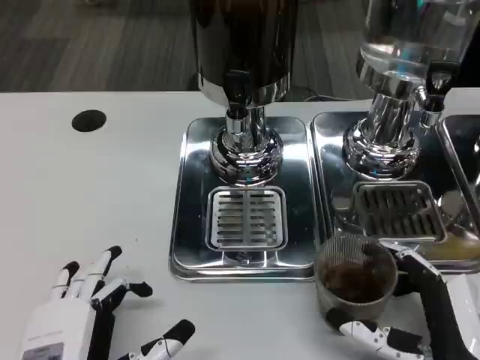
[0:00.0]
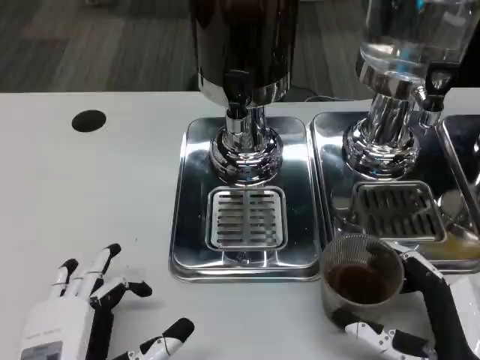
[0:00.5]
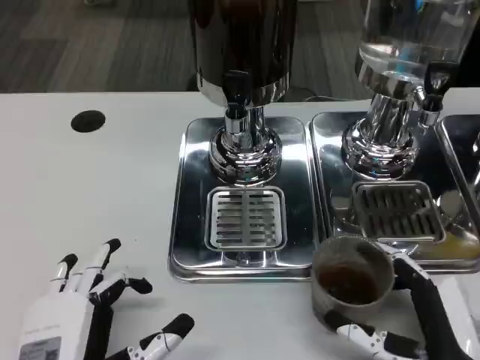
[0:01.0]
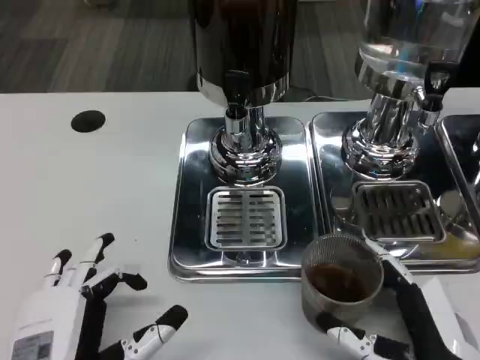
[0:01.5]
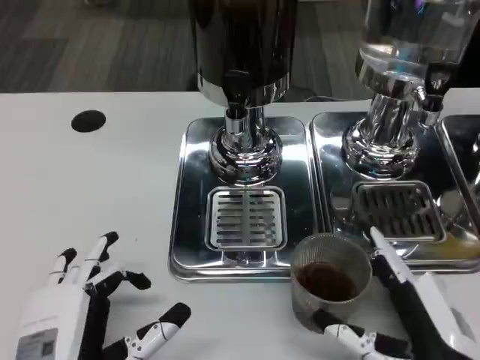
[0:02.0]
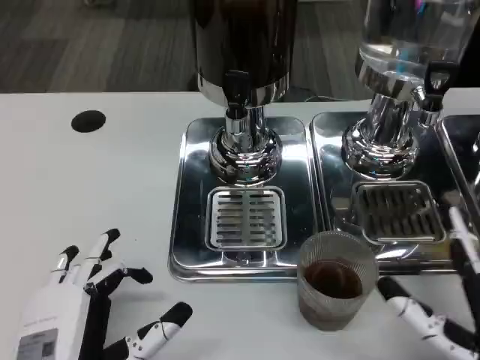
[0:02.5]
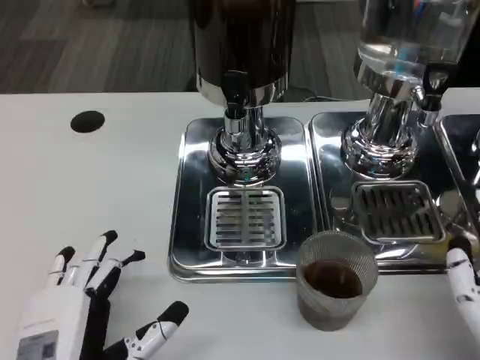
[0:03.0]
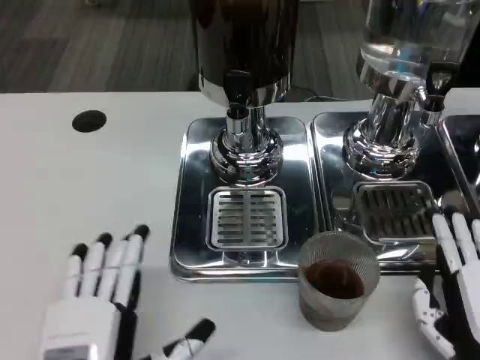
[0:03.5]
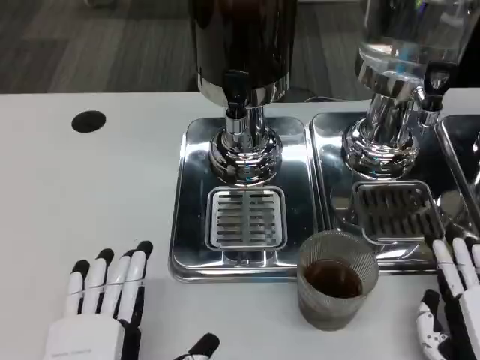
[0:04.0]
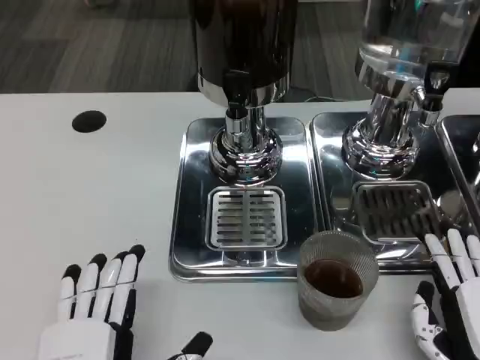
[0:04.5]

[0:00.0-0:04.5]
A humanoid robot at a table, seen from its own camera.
Task of the whole recording: Grasp the cup under the faucet to collect the drink, then remove the cup.
0:00.0 to 0:02.0: The hands move only a little.

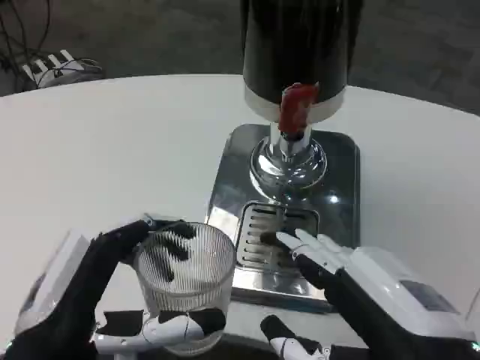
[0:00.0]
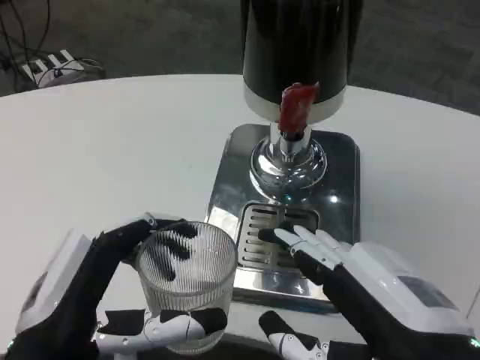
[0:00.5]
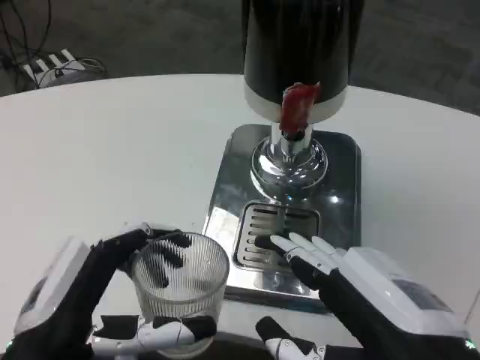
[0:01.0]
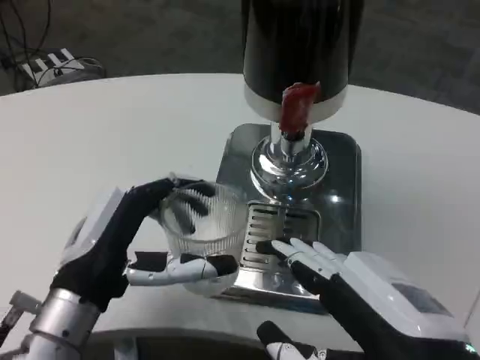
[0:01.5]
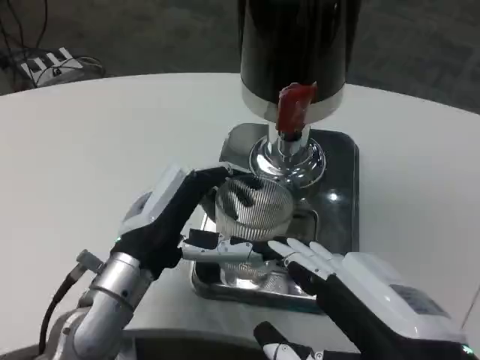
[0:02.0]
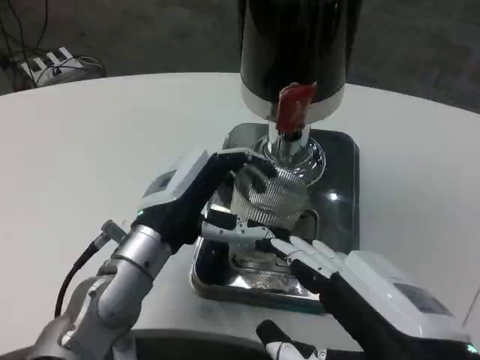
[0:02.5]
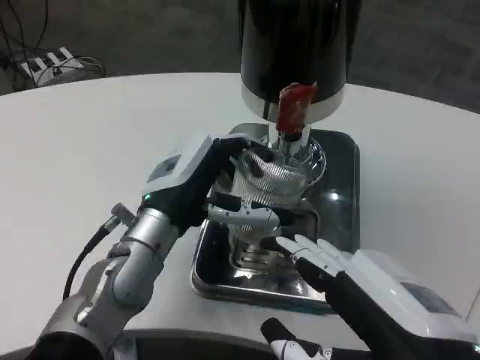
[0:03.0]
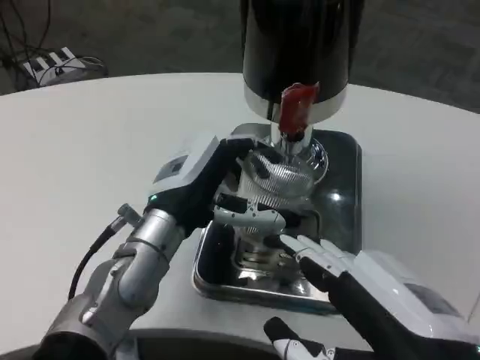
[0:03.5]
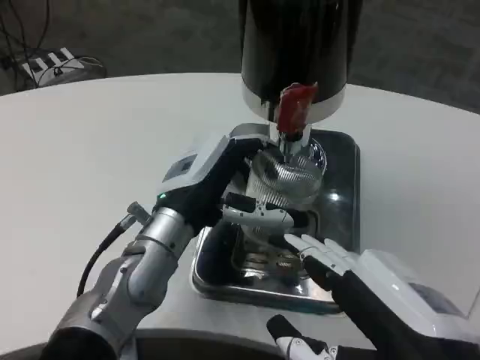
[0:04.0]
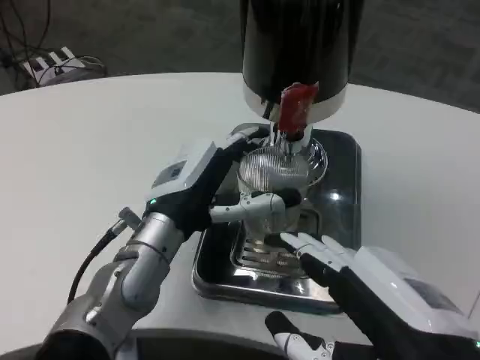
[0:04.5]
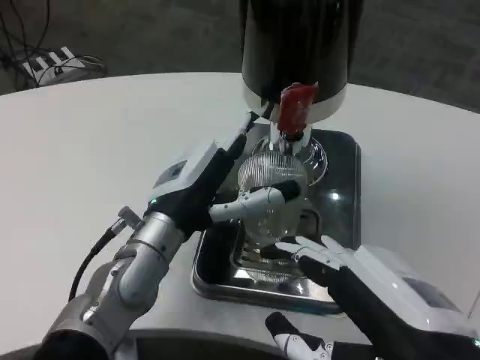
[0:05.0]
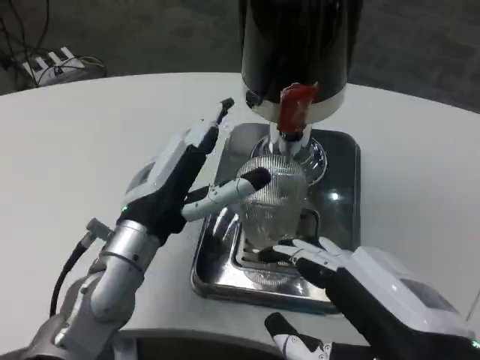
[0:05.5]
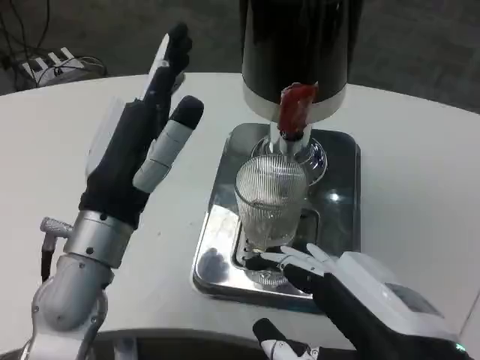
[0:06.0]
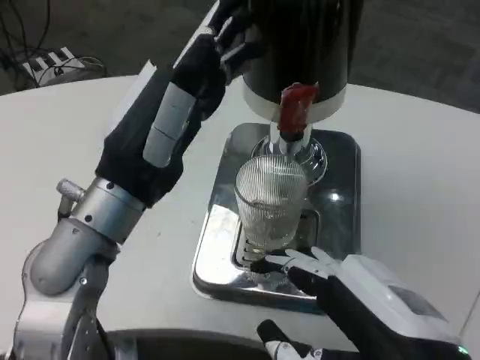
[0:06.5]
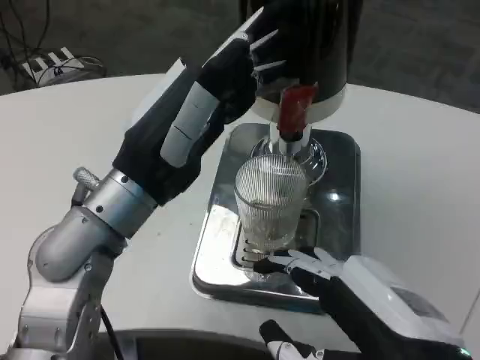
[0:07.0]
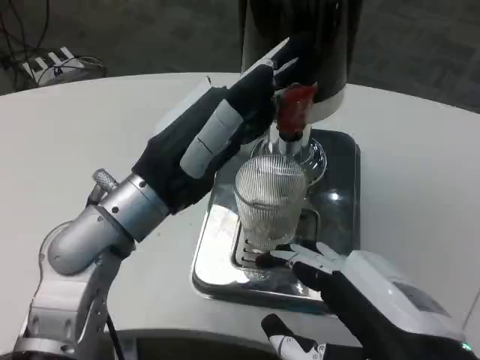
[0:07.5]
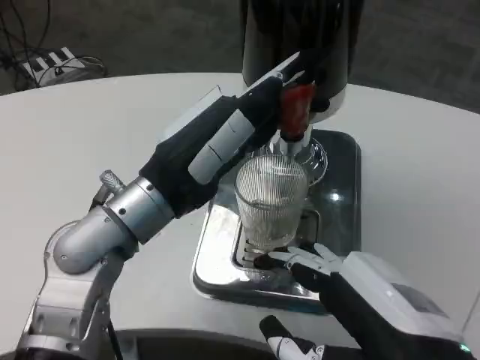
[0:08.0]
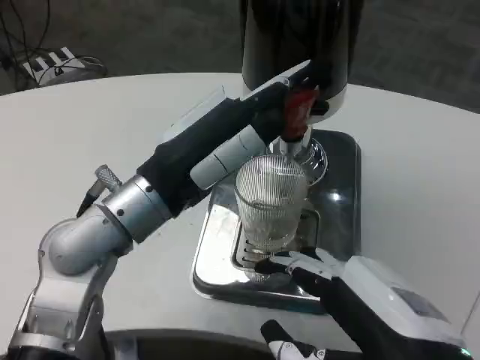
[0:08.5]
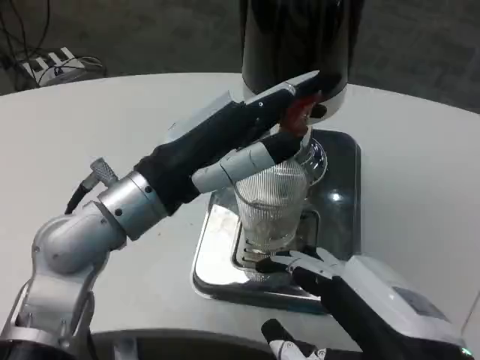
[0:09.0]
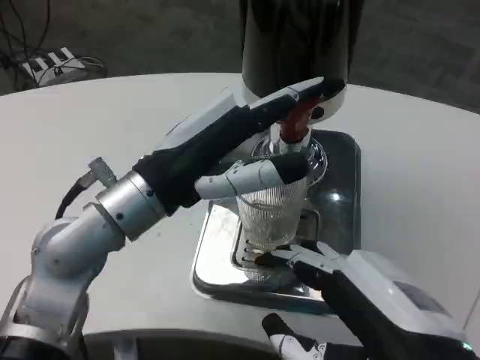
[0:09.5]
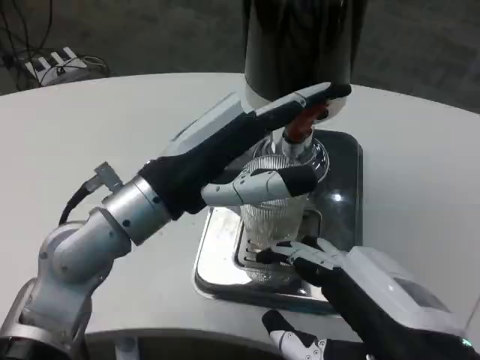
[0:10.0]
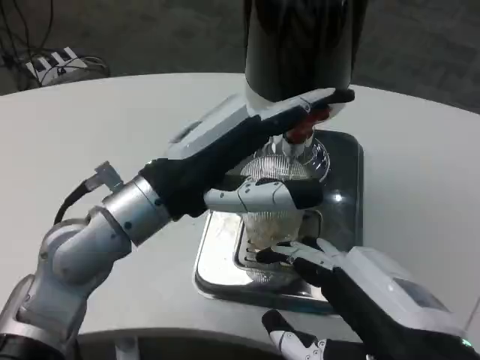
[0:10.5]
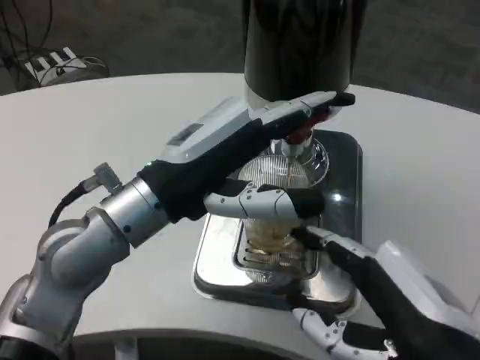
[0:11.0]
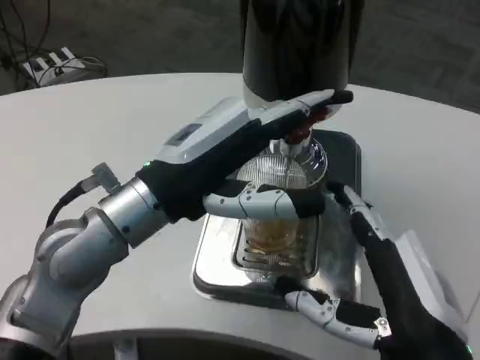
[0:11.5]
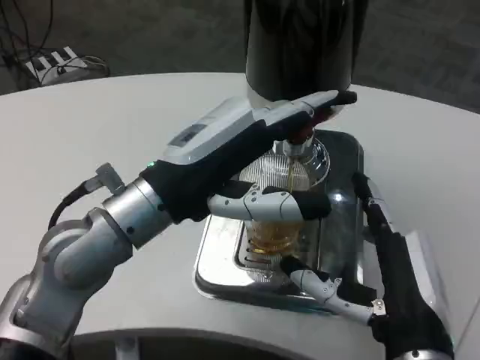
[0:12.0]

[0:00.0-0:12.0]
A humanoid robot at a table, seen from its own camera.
Task of the whole recording: Grasp the cup under the faucet to collect the drink, then remove the cup.
0:00.0 to 0:02.0: The left hand heads forward, covering some 15 cm.
0:02.0 to 0:04.0: The left hand moves roughly 5 cm.
0:04.0 to 0:06.0: The left hand is displaced backward by some 5 cm.
0:10.0 to 0:12.0: The right hand moves downward and forward, approximately 10 cm.

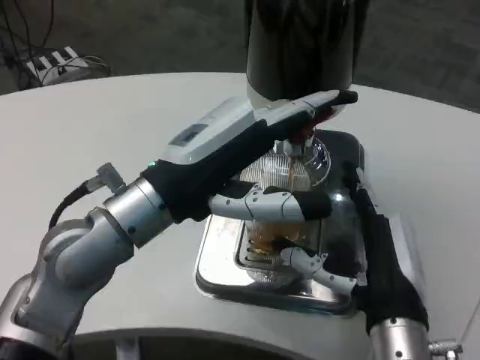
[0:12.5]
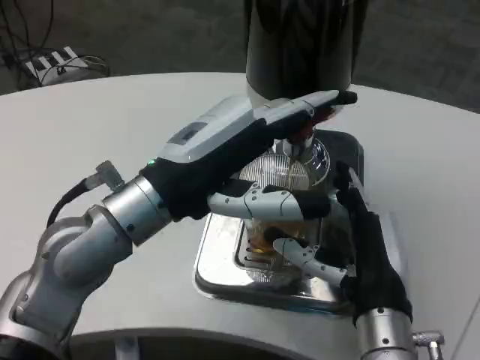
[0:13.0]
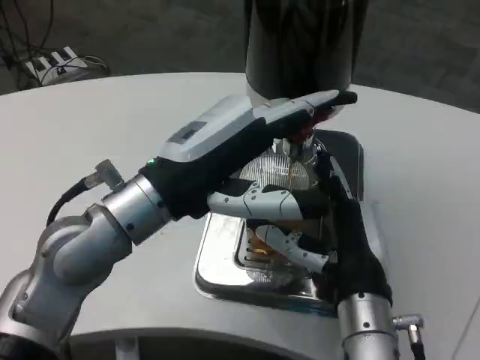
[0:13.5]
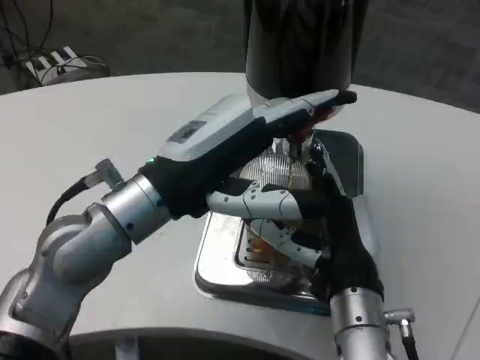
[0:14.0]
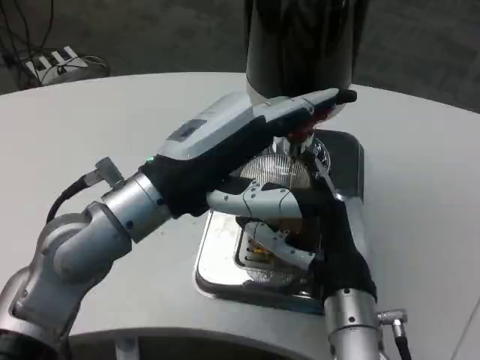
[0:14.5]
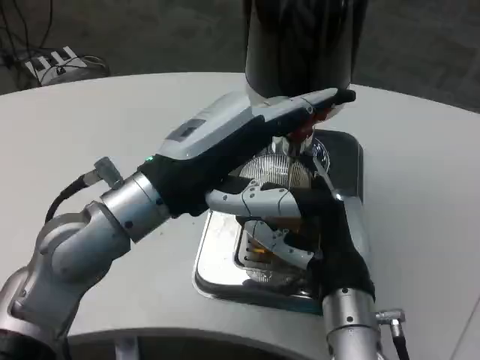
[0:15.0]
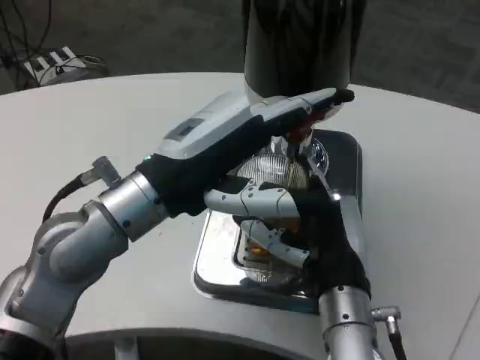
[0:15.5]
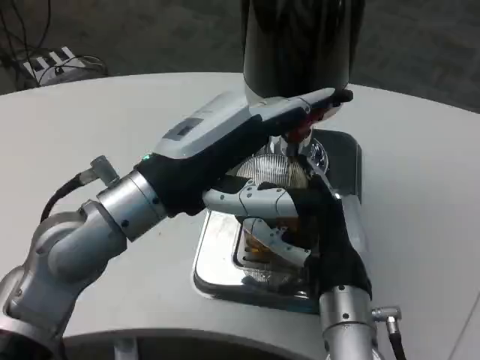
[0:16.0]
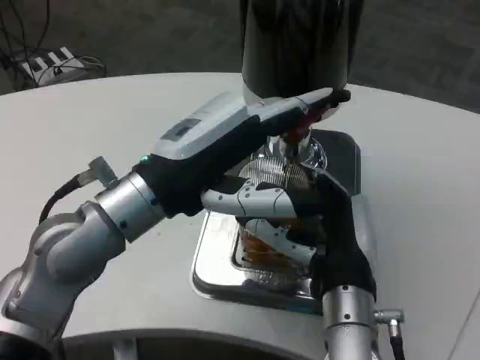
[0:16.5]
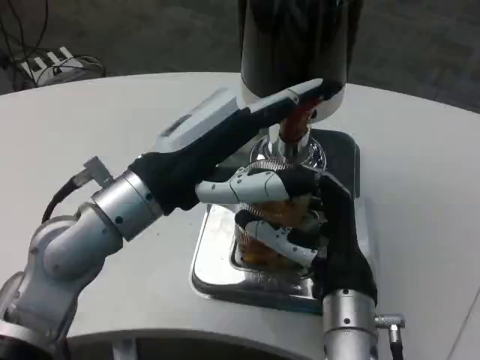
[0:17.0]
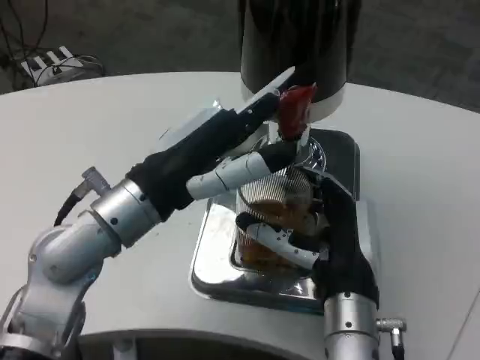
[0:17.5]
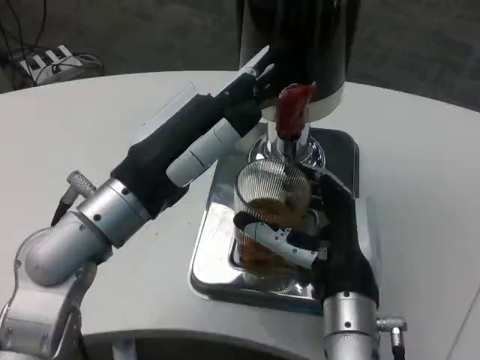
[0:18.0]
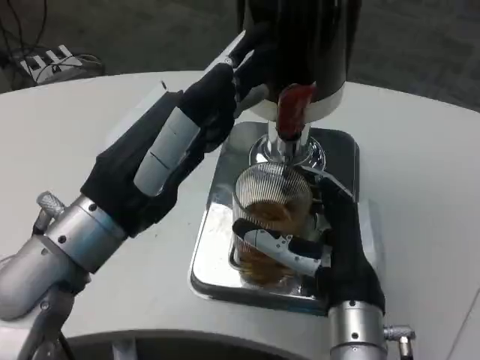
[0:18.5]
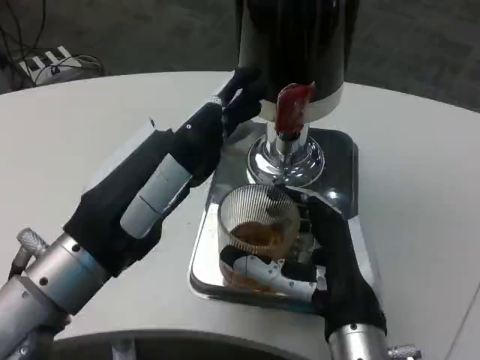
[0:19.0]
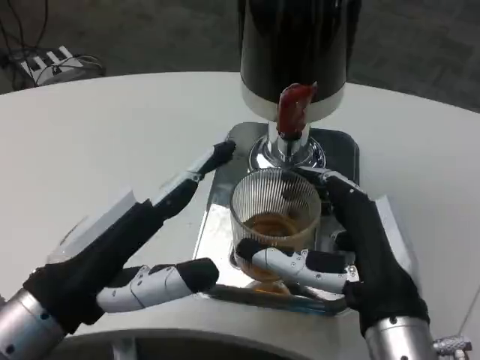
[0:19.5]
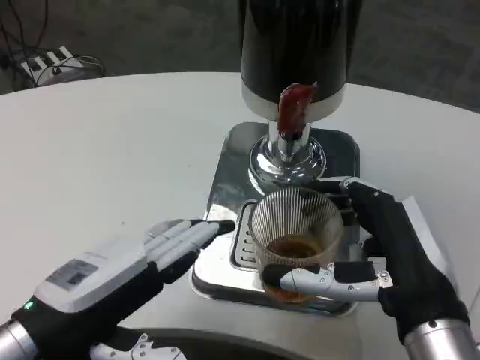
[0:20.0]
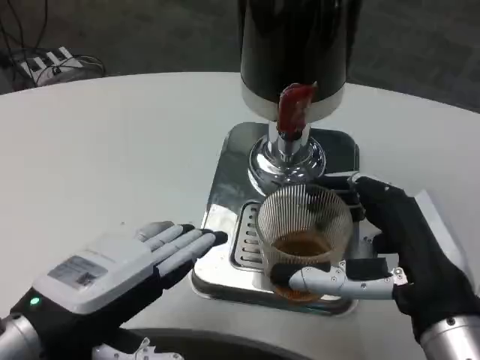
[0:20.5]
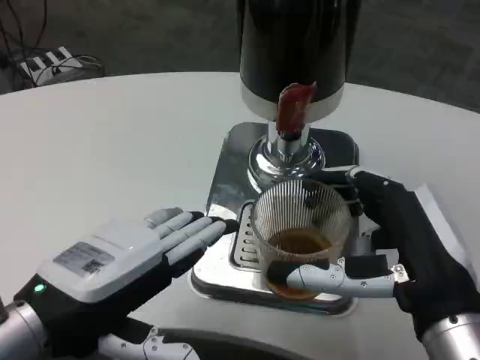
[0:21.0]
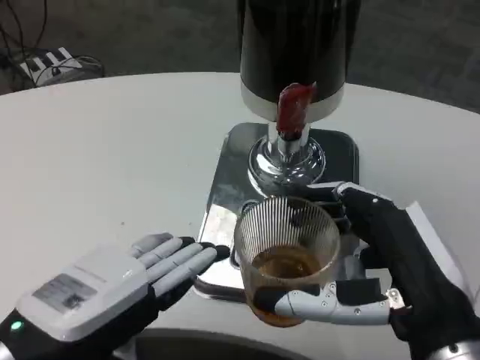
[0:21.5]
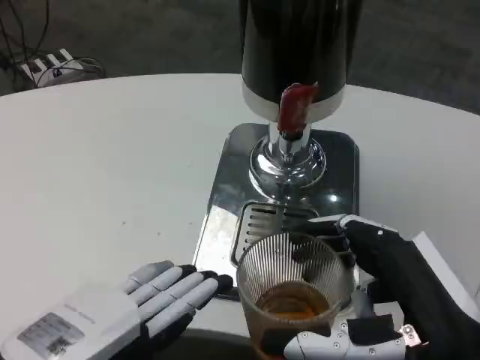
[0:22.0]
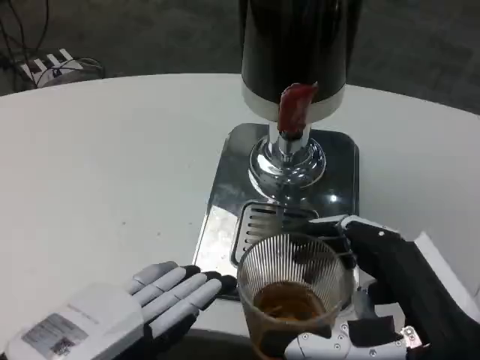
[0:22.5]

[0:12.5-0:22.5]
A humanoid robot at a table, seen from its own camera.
Task of the whole recording: Grasp the cup under the faucet to collect the drink, then remove the cup.
0:12.5 to 0:16.5: There are only small adjustments of the hands.
0:18.5 to 0:20.5: The right hand travels backward, to the right and upward by approximately 10 cm; the left hand heads to the left, backward and downward, covering some 10 cm.
0:20.5 to 0:22.5: Both hands move backward, approximately 5 cm.
